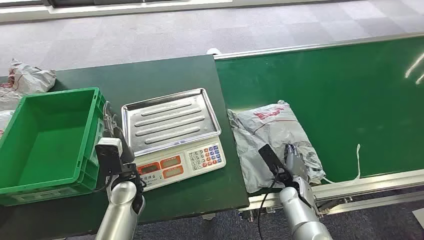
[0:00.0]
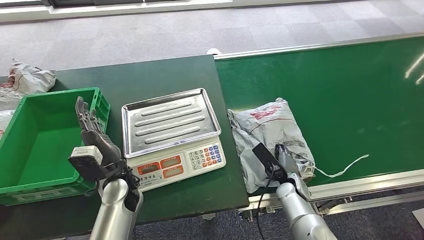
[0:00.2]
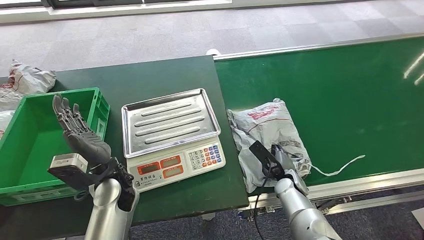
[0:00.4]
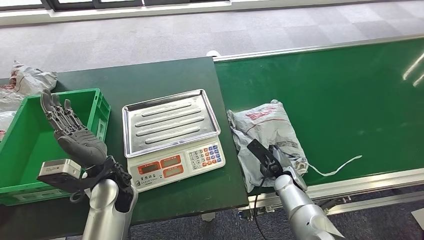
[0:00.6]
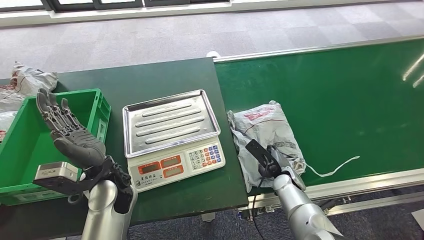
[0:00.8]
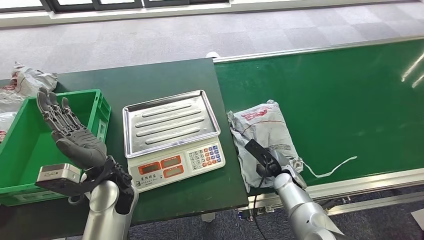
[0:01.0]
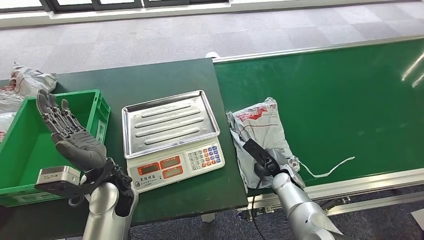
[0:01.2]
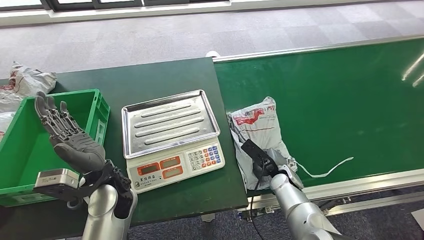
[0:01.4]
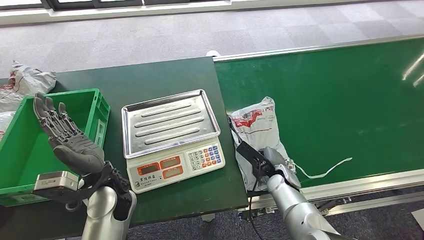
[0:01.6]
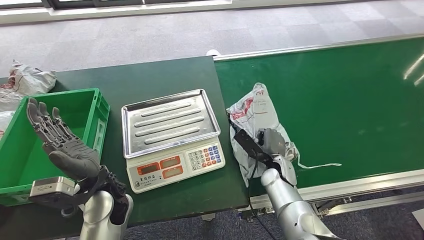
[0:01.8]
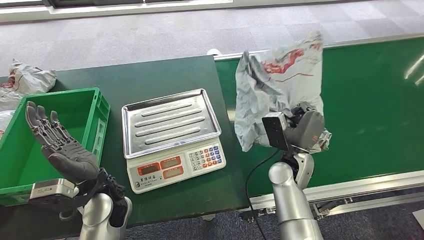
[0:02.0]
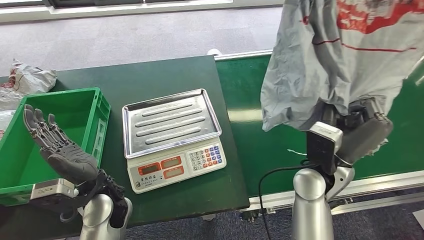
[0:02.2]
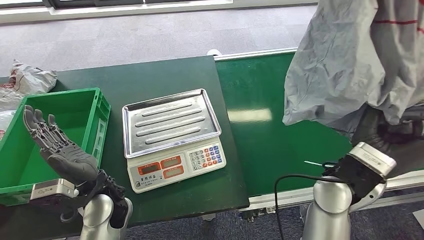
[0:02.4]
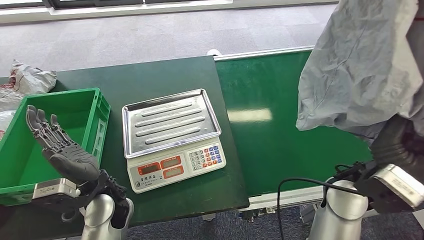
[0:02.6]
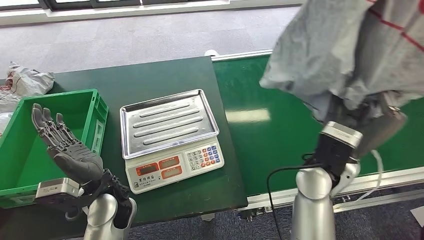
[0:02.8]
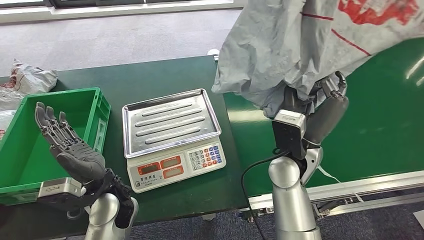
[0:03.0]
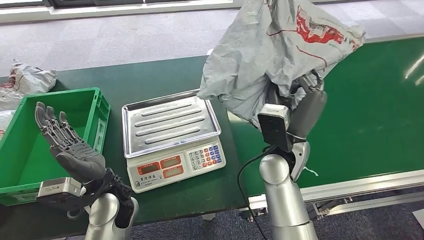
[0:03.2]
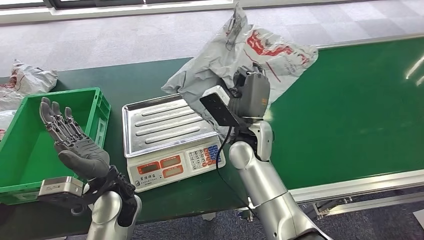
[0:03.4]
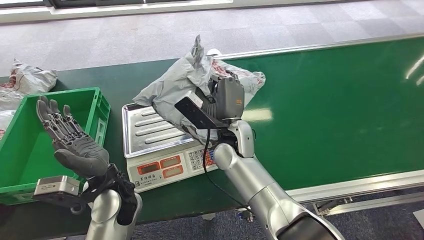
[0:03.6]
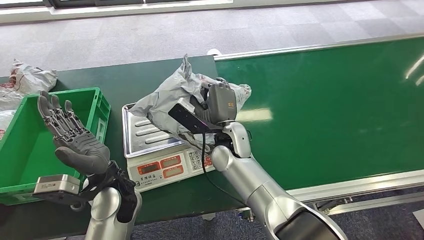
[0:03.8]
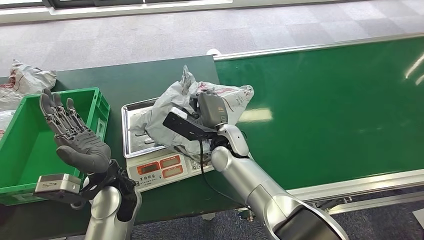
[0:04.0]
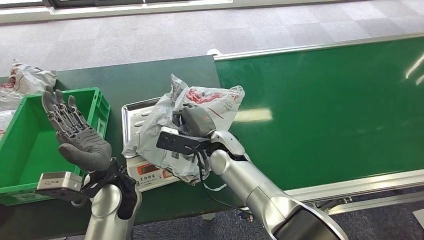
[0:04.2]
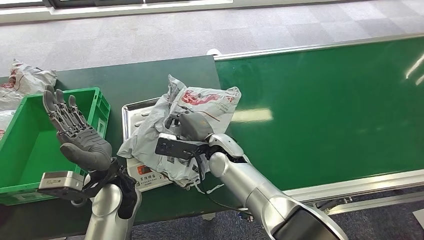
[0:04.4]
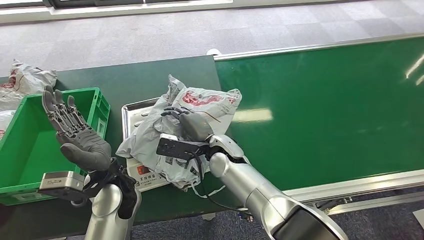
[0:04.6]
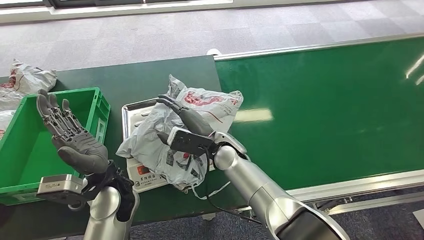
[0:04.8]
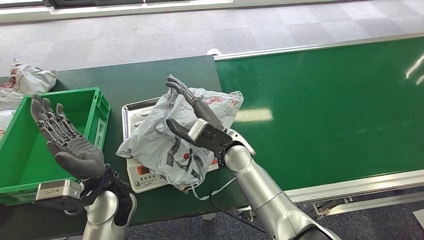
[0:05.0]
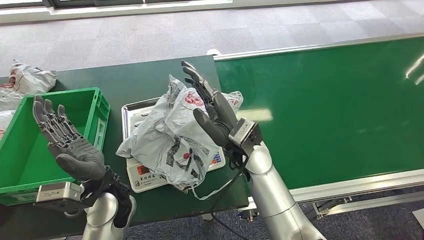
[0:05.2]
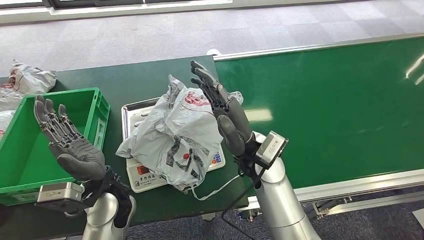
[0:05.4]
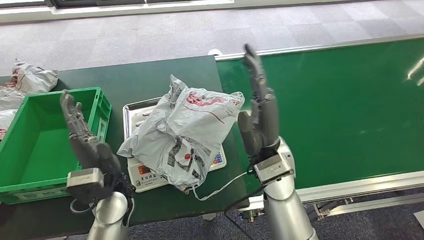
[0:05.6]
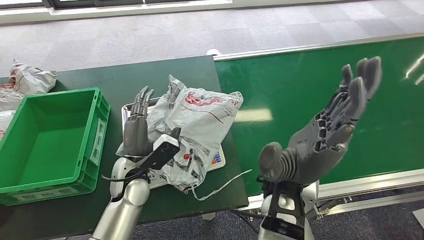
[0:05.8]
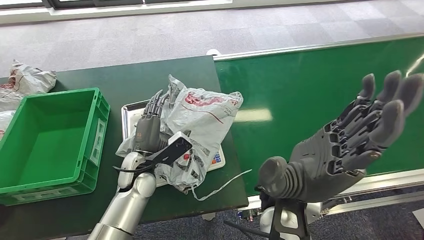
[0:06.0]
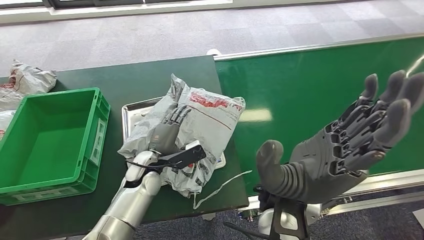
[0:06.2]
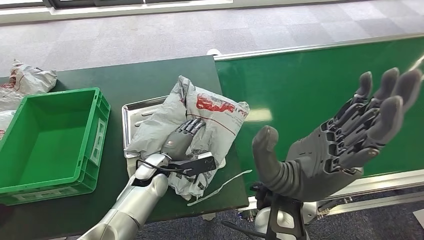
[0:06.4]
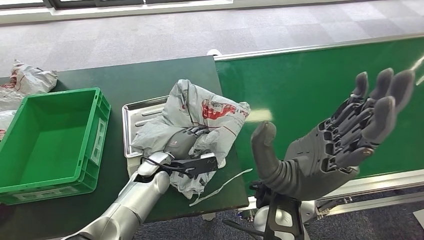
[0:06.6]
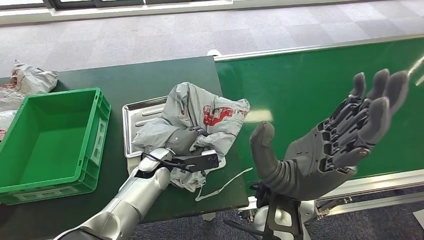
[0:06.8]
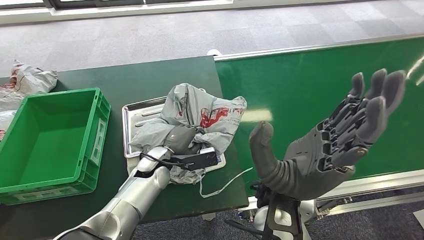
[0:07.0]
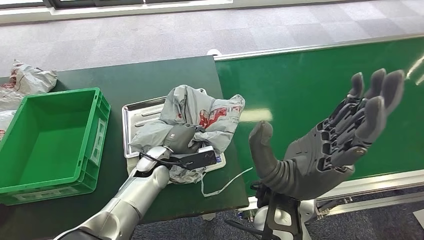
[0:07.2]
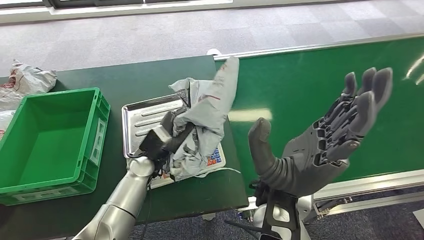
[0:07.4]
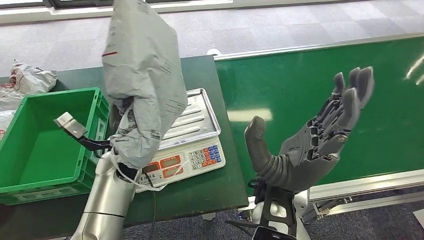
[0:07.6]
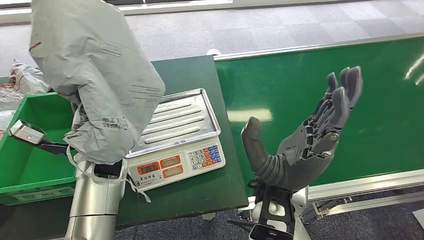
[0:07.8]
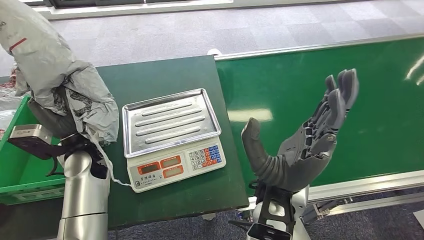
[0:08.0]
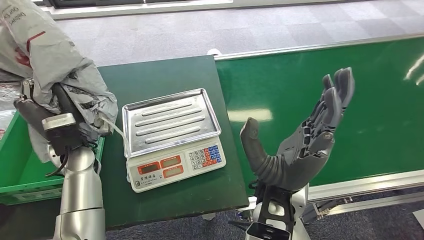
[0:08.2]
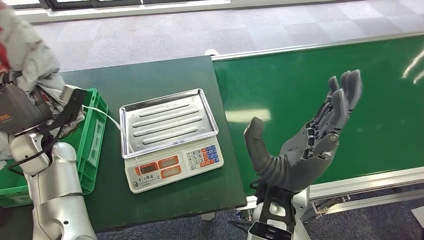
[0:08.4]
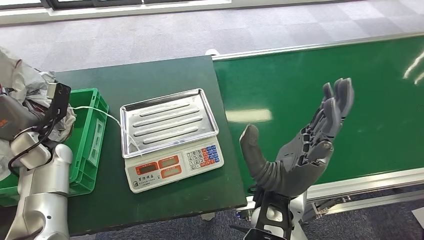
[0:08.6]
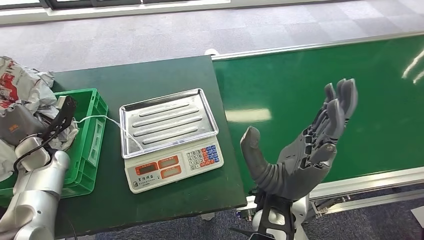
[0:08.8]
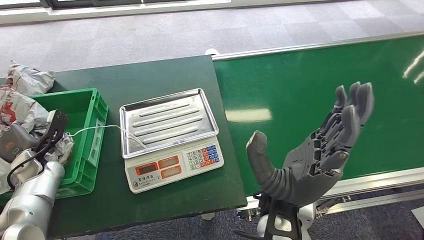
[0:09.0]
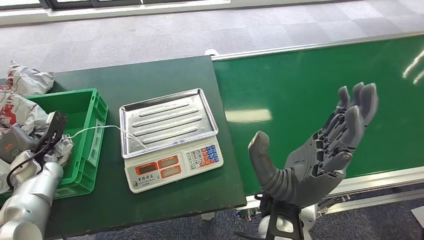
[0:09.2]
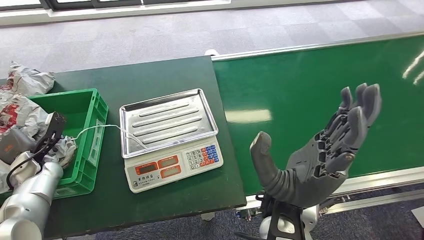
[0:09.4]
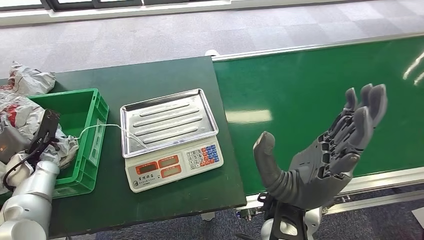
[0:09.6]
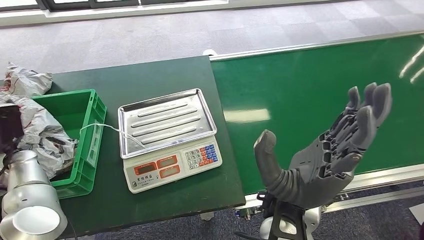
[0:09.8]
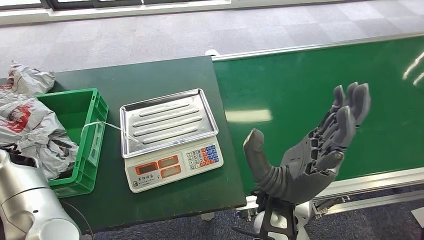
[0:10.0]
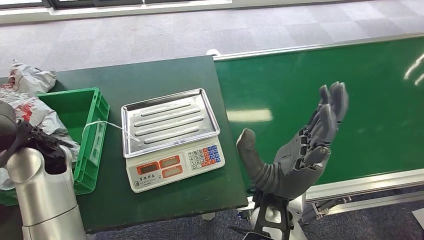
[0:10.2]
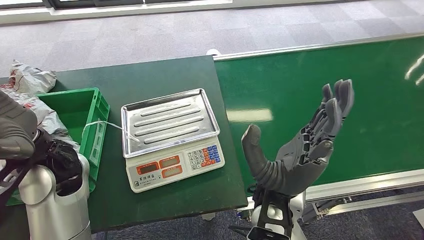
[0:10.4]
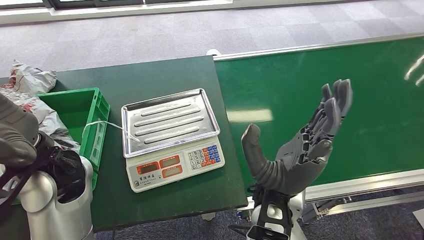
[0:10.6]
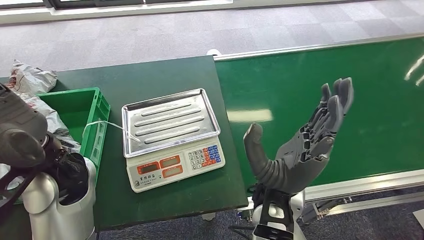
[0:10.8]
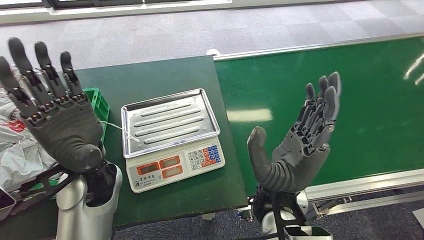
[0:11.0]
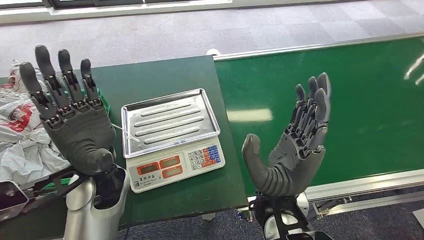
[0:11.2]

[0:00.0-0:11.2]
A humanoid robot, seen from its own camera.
Step, 0:00.0 to 0:02.4: Pick up the package from the conveyor belt.
Step, 0:02.6 to 0:05.6: Place the package onto the inbound machine.
Step, 0:05.8 to 0:08.0: Pick up the package from the inbound machine.
Step, 0:08.2 to 0:11.2: Place the package into the parcel locker.
